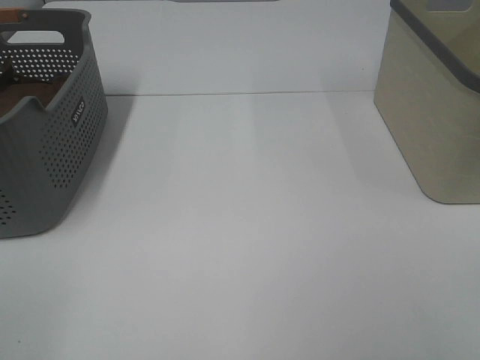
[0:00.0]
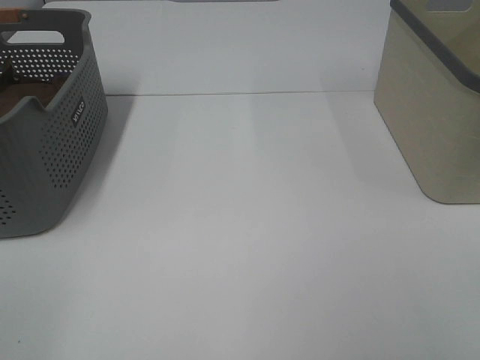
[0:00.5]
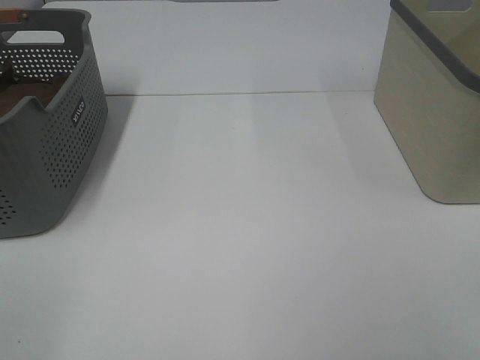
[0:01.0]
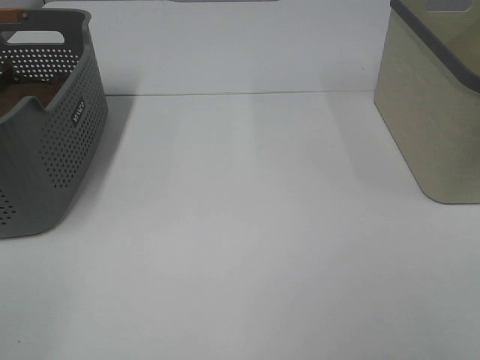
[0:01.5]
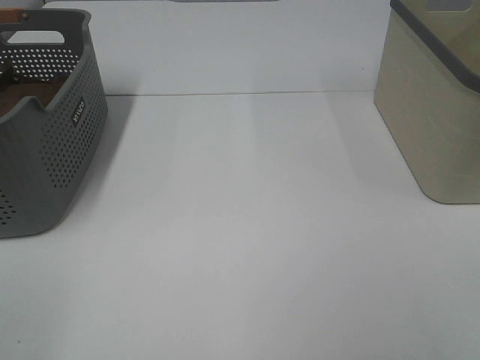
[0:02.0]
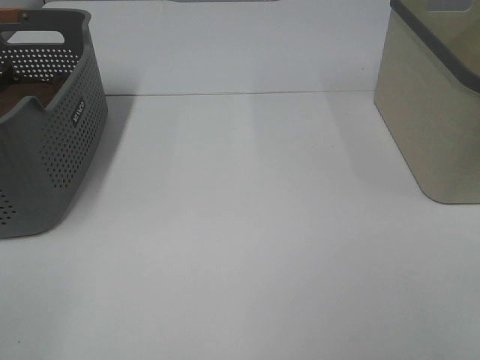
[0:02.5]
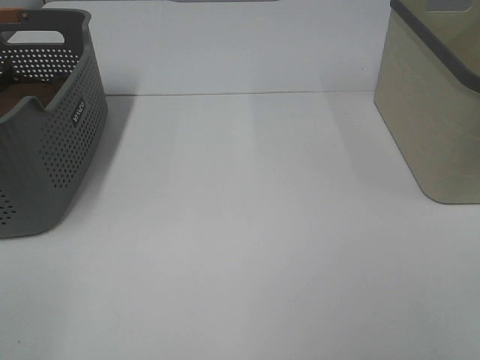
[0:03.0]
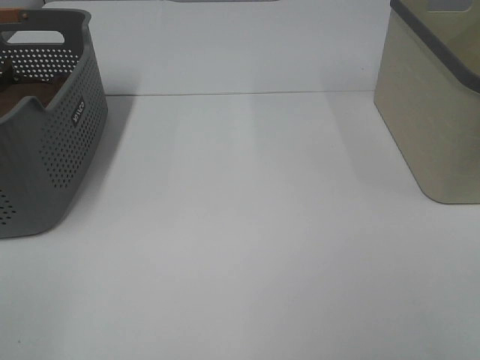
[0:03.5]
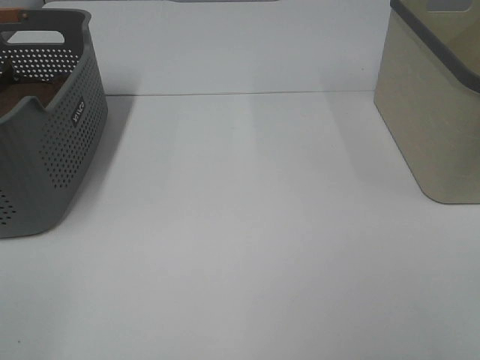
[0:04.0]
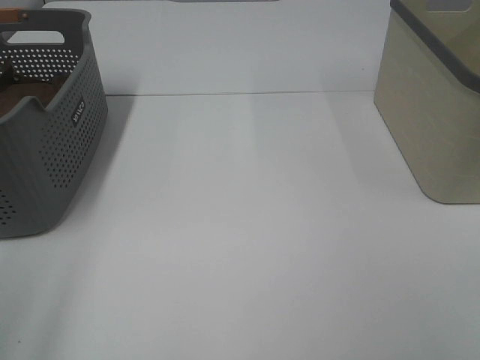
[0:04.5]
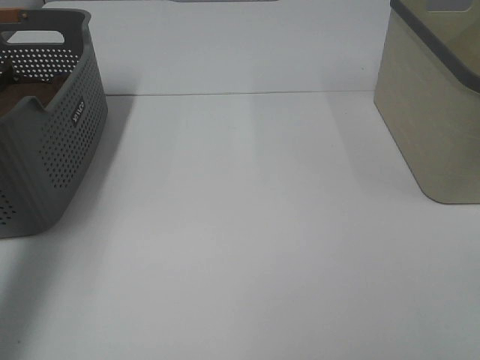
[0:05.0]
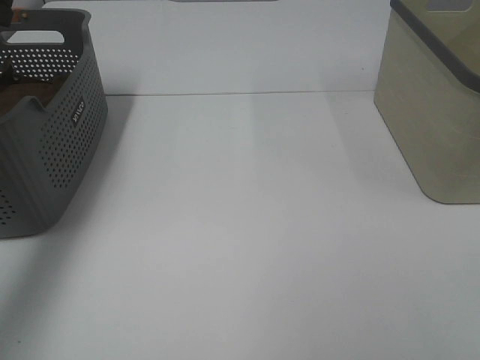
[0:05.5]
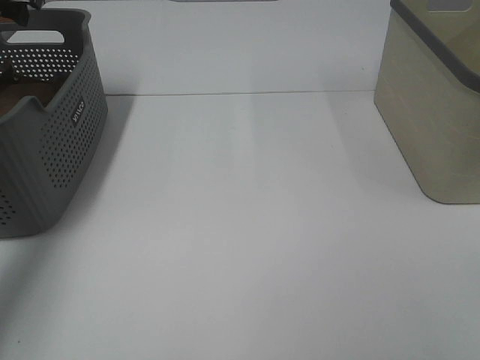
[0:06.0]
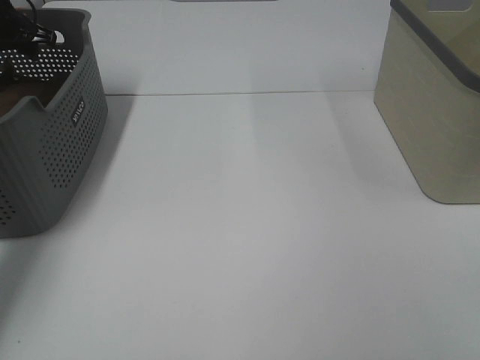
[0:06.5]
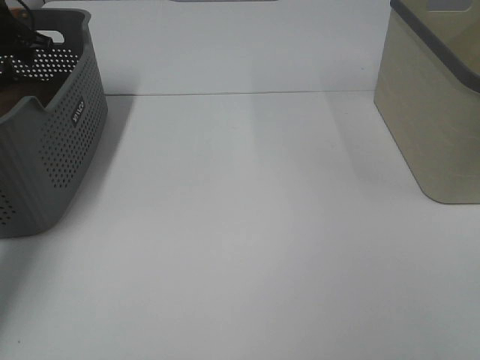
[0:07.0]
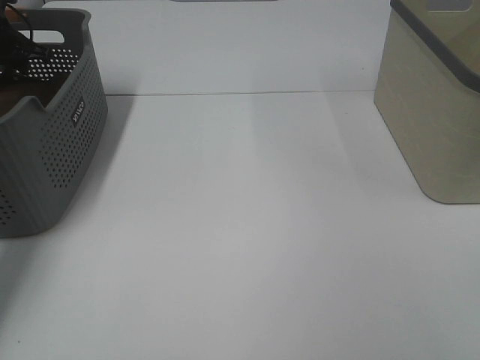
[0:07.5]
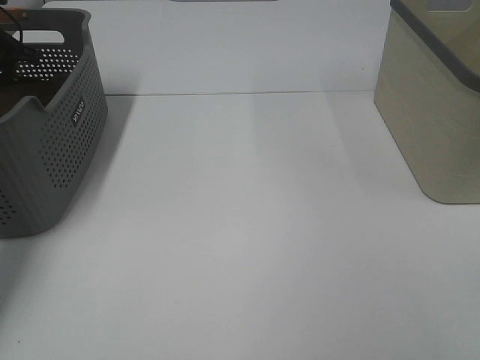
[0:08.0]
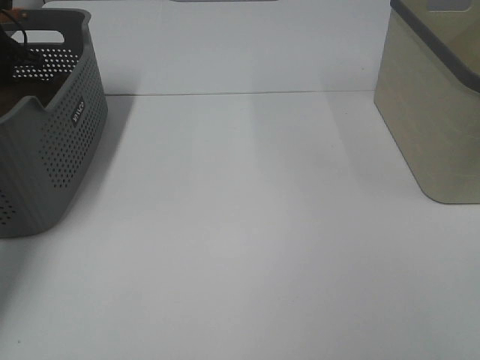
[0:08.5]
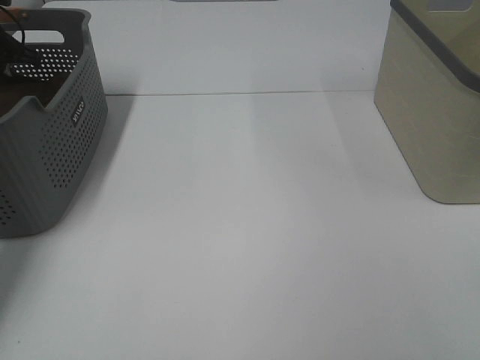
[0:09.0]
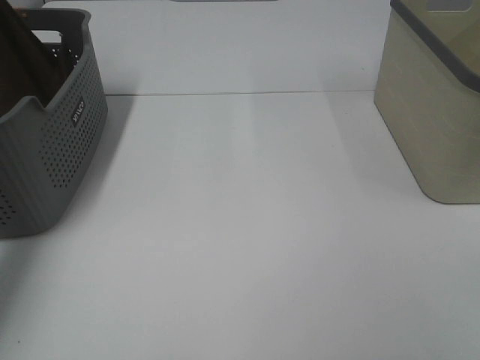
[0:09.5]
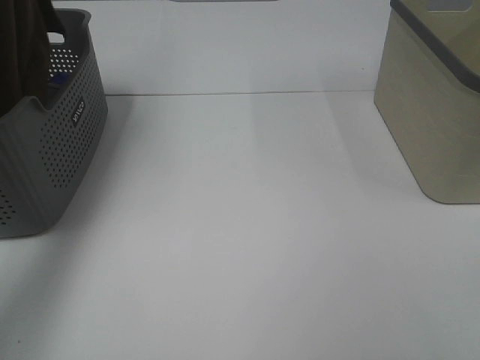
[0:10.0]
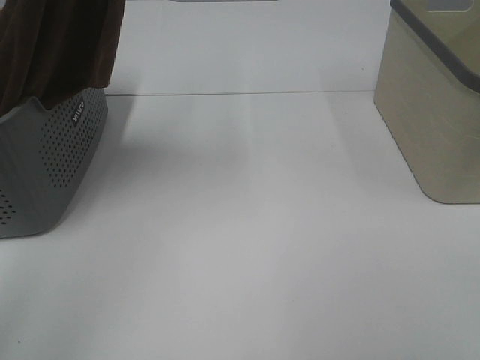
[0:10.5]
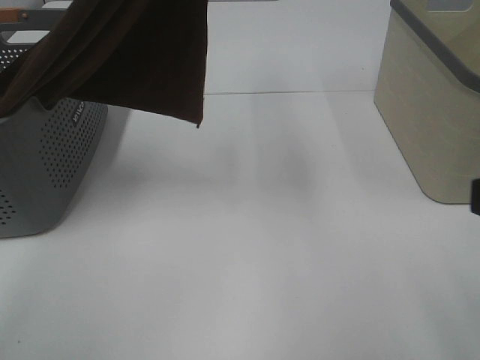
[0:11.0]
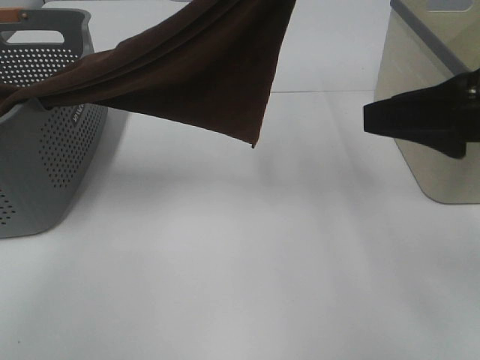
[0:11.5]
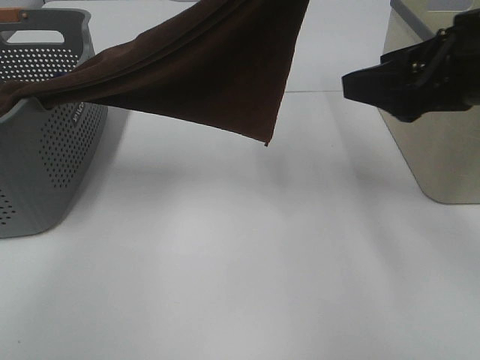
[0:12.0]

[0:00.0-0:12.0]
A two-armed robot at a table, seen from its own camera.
Task of the whole recording: Remove the towel and place it.
0:00.0 to 0:04.0: Neither gripper changes place.
0:04.0 to 0:06.0: The left gripper shifts about 50 cm forward.
0:06.0 to 0:08.0: The left gripper heads downward and to the left, covering approximately 10 cm.
0:08.0 to 0:10.0: The left gripper shifts approximately 30 cm upward and backward, and closes up.
0:10.0 to 0:12.0: The left gripper travels to the right by roughly 30 cm. The right gripper travels forward by about 25 cm.

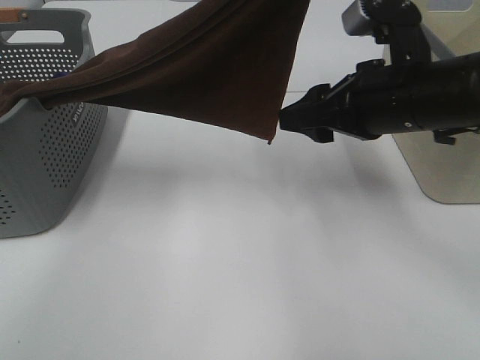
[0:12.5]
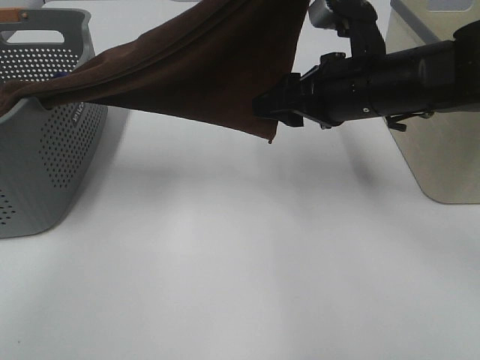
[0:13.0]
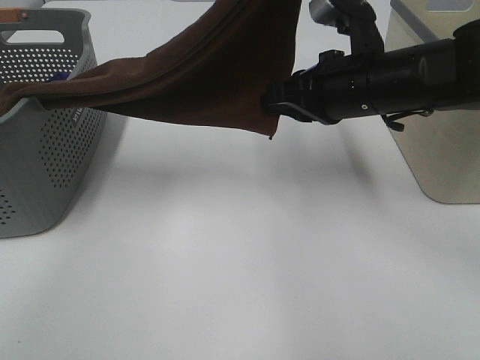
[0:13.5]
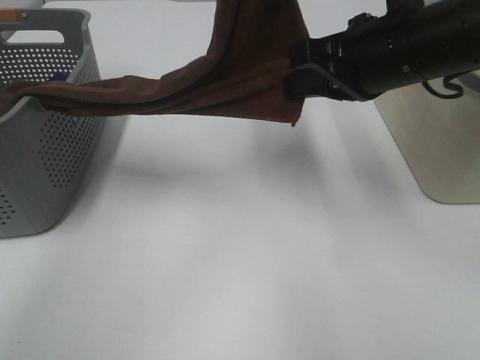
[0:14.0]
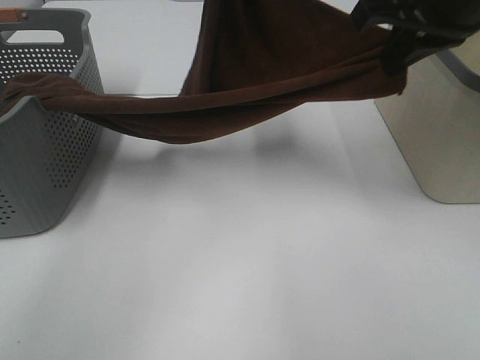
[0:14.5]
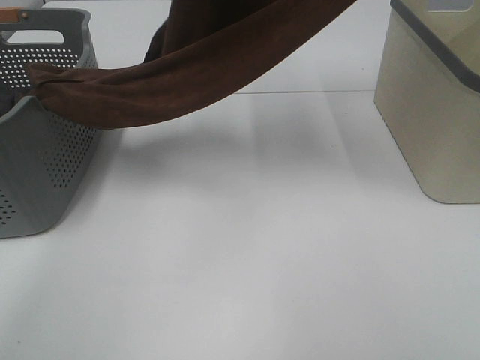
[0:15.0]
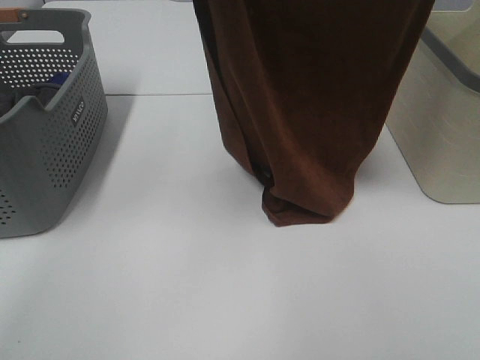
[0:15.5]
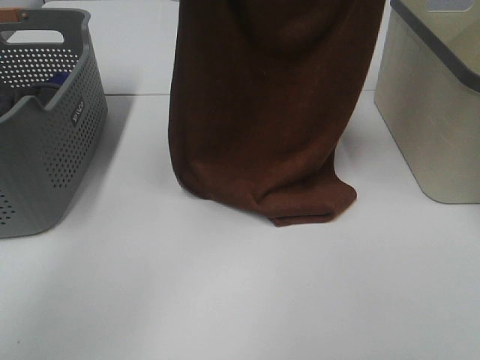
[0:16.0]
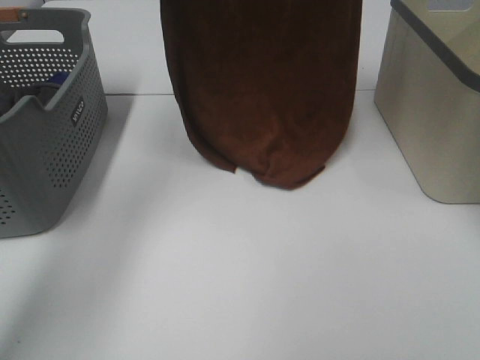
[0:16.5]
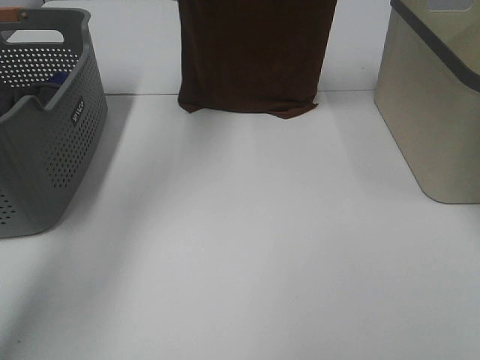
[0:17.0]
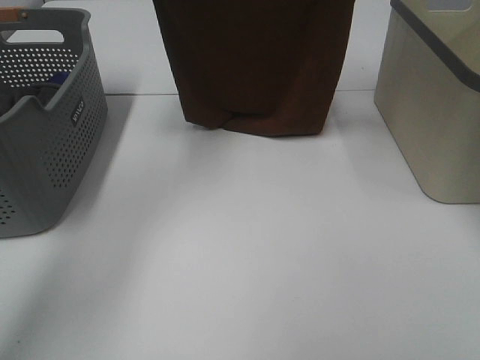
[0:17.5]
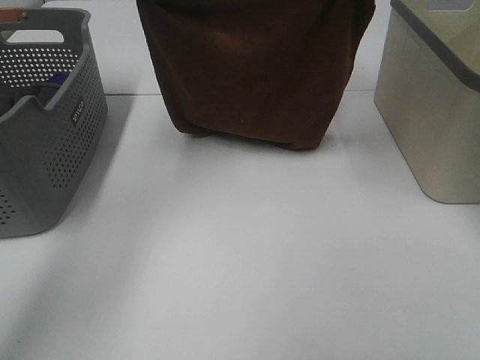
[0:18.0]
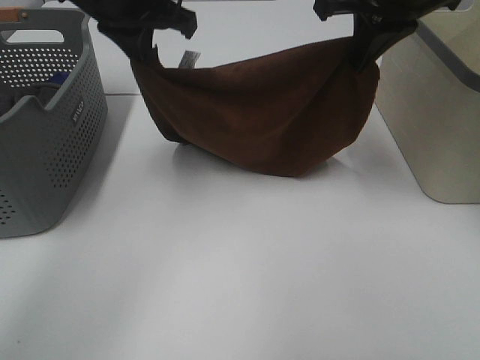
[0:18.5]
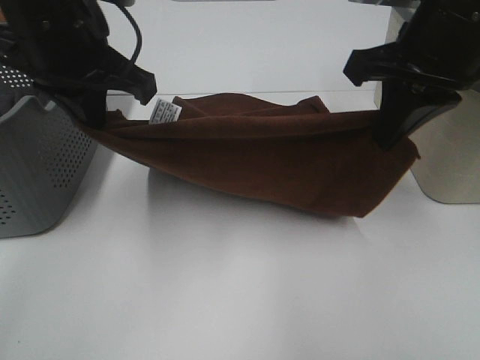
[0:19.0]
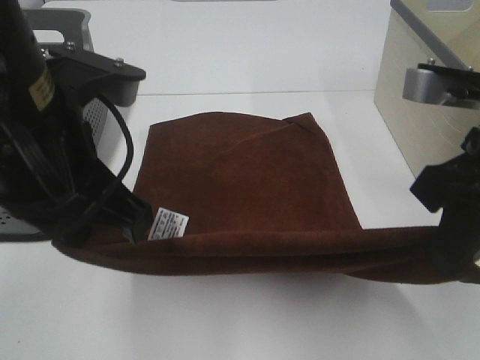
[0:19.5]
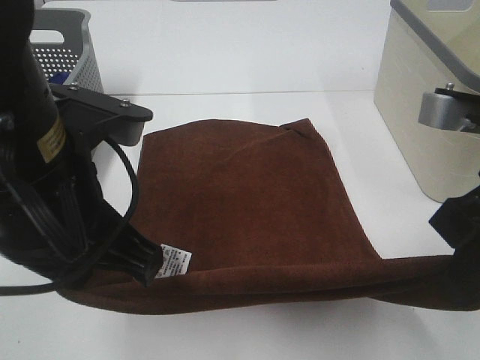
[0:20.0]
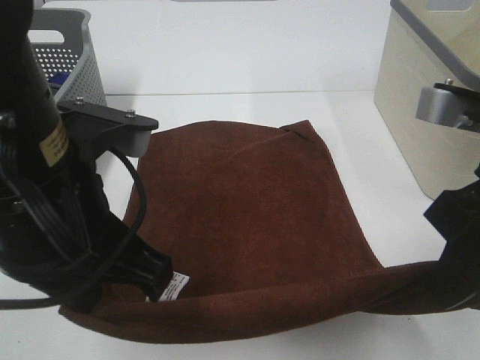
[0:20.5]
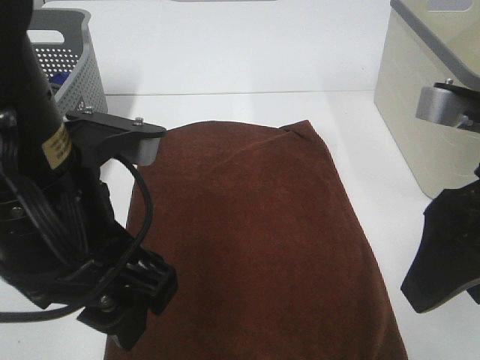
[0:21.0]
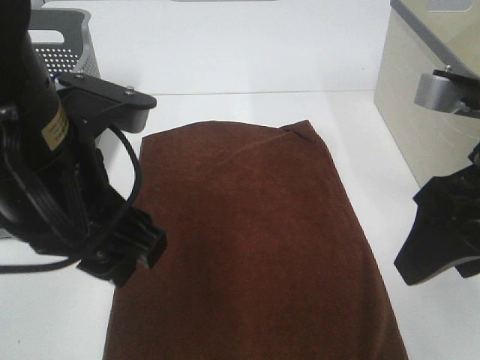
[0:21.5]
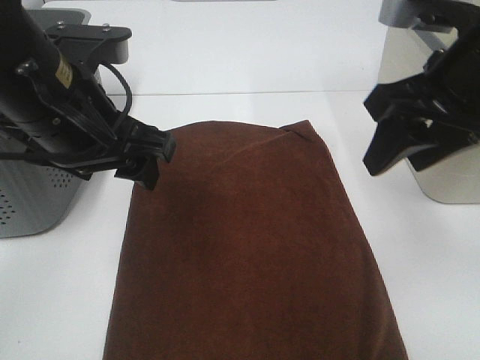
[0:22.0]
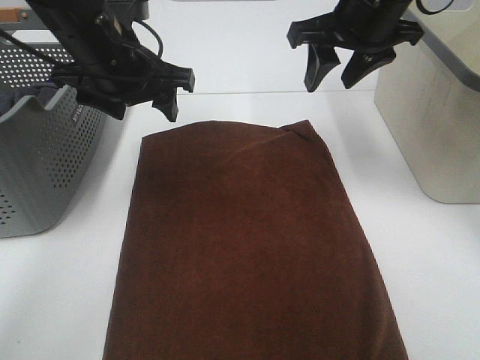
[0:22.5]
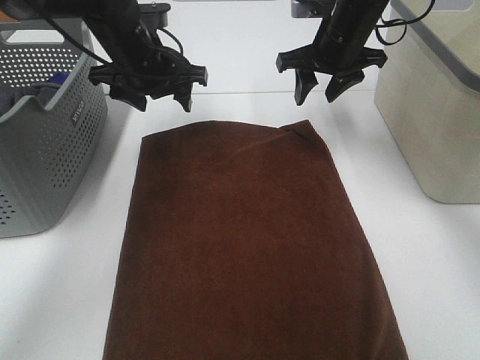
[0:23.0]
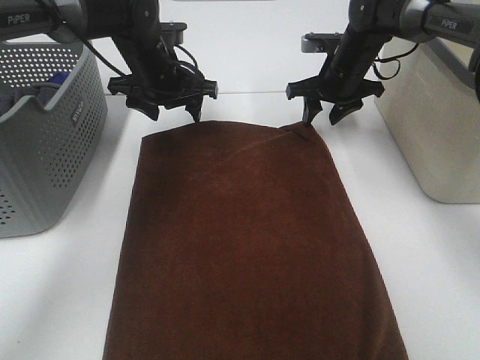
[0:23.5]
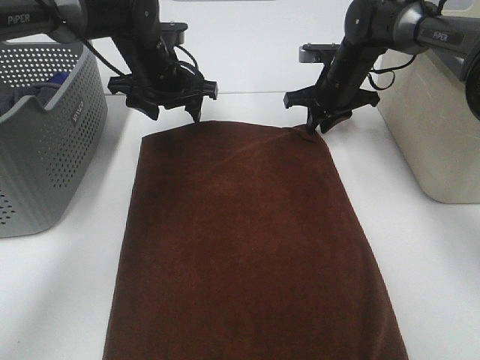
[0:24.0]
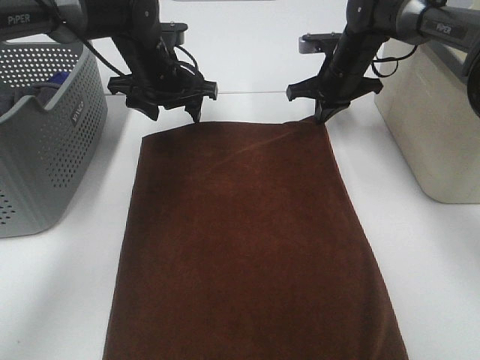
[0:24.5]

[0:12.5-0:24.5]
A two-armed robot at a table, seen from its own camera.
Task of the whole recording: Remove the towel and place it.
Step, 0:13.0 to 0:16.5: Left hand: spread the brown towel flat on the table.
Step, 0:13.0 to 0:16.5: Right hand: spread the brown towel flat on the table.
Step, 0:17.0 to 0:23.0: Left hand:adjust the brown towel.
Step, 0:17.0 to 0:23.0: Right hand:adjust the brown towel.
0:12.5 to 0:14.5: The right gripper is displaced upward by roughly 10 cm, and closes up. The left gripper heads forward, to the left and downward, covering some 10 cm.
0:14.5 to 0:16.5: The right gripper shifts about 15 cm forward and upward; the left gripper heads forward, to the left and upward, covering some 15 cm.
0:16.5 to 0:18.5: The grippers both shift downward and backward by about 15 cm.
0:18.5 to 0:20.5: Both grippers travel together backward, about 20 cm.
0:20.5 to 0:22.5: The two grippers go about 20 cm forward. The right gripper opens. The left gripper opens its fingers.
0:22.5 to 0:24.5: The right gripper goes roughly 20 cm downward and forward, and closes up; the left gripper is displaced forward and downward by about 15 cm.

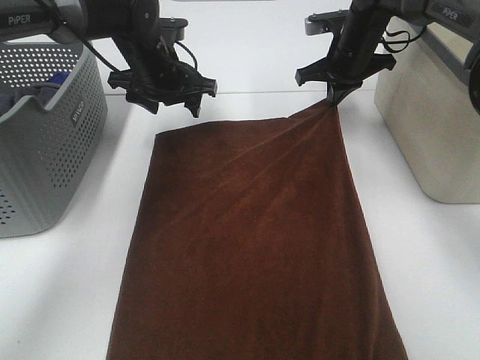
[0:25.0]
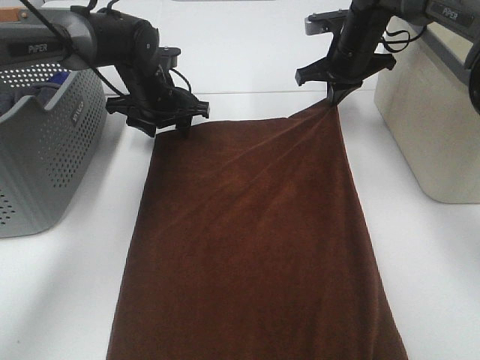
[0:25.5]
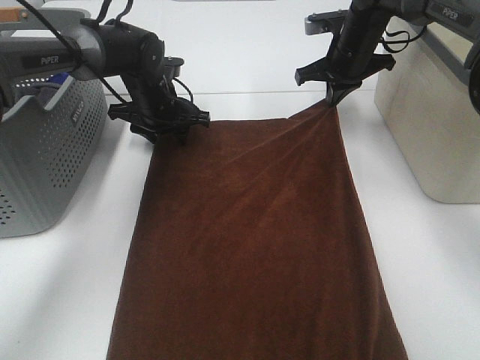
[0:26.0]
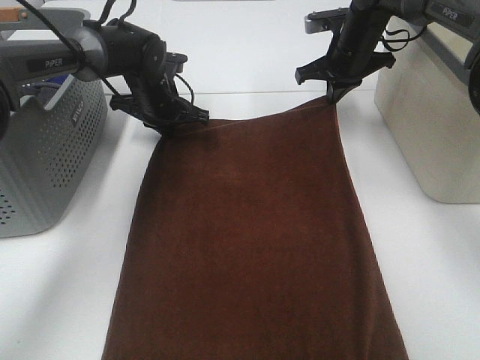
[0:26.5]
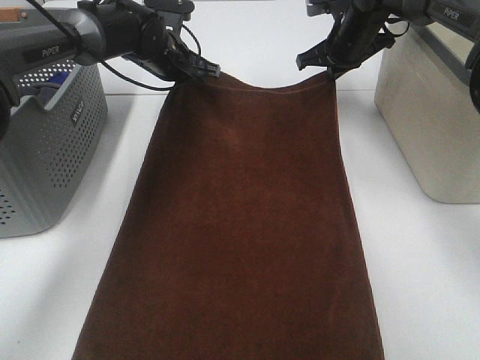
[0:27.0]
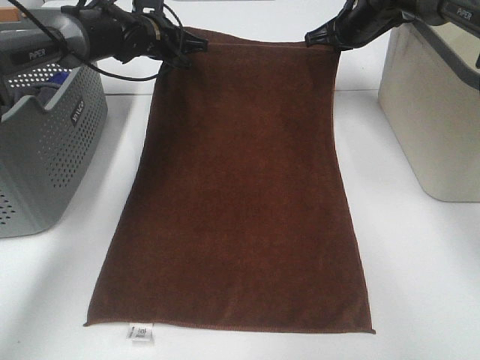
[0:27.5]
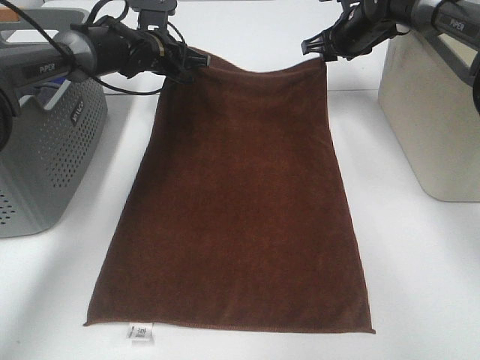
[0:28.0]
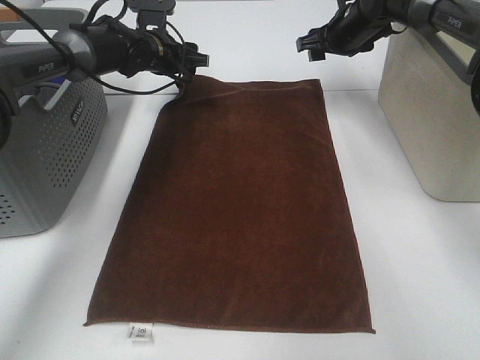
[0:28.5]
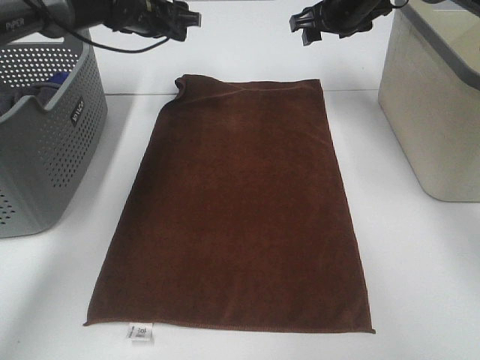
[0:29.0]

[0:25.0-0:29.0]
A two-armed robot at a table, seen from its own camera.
Task of the whole recording: Remove the towel and place it.
0:25.0 to 0:27.0: The left gripper heads forward, covering roughly 5 cm, and closes.
0:27.0 to 0:29.0: The grippers both shift upward by approximately 5 cm. The left gripper opens. The right gripper opens.
